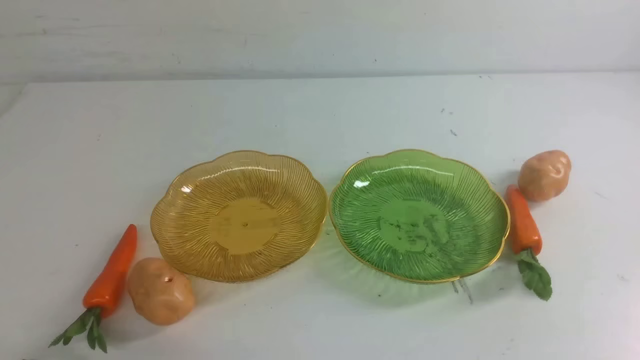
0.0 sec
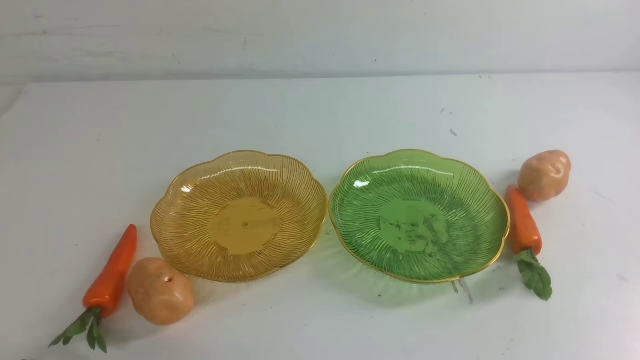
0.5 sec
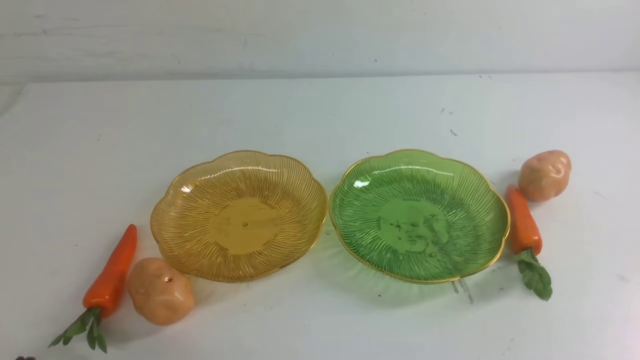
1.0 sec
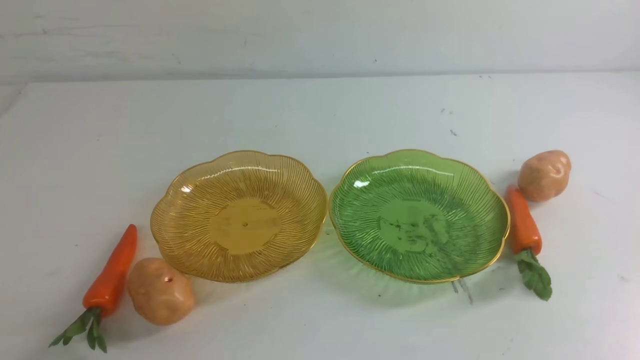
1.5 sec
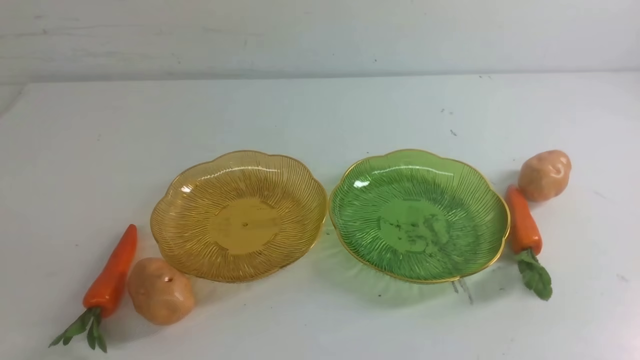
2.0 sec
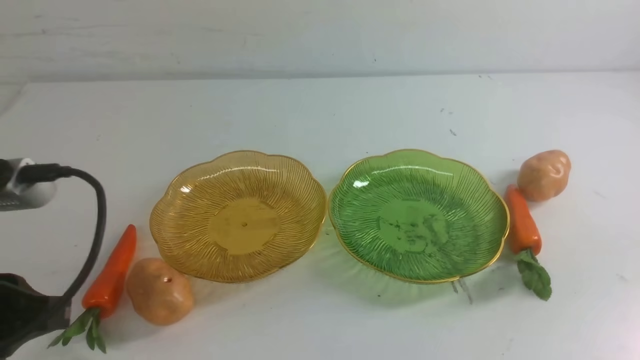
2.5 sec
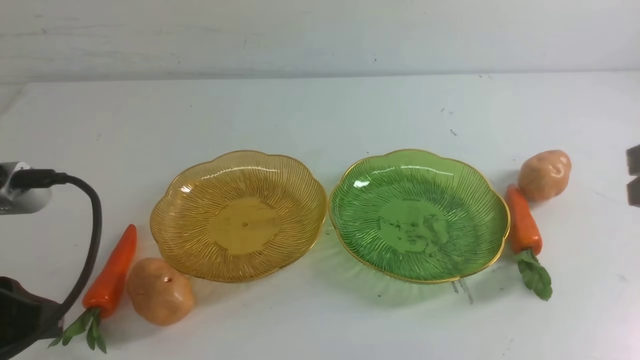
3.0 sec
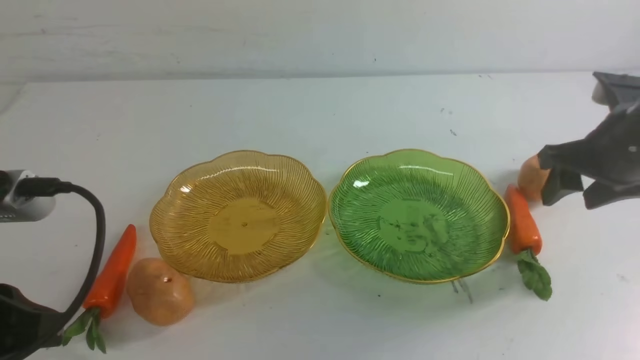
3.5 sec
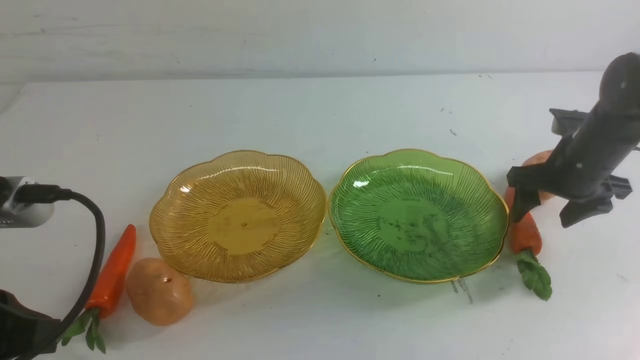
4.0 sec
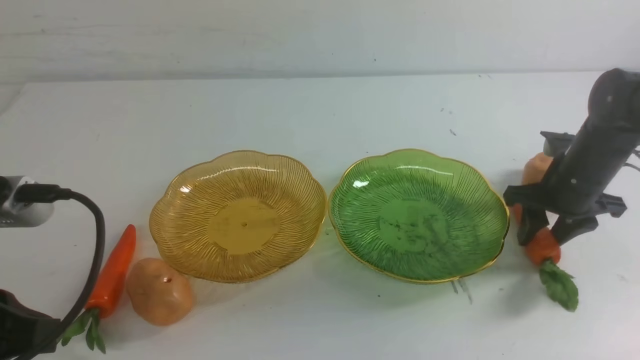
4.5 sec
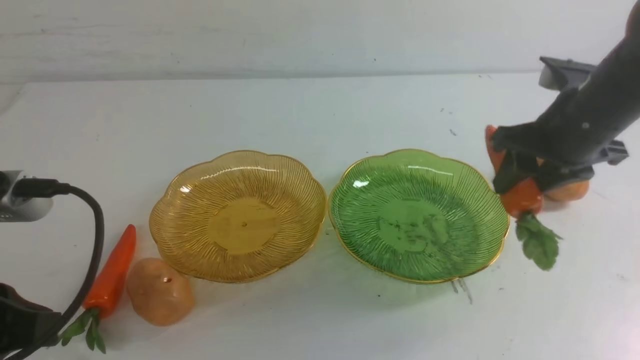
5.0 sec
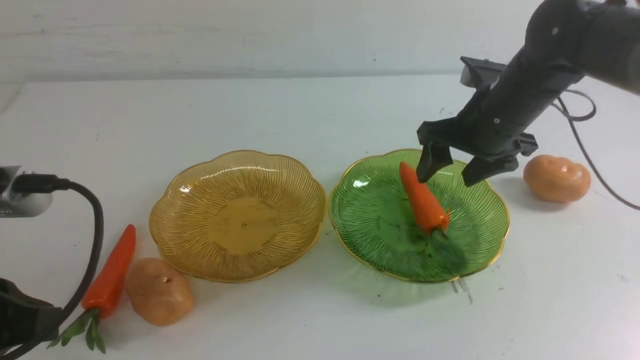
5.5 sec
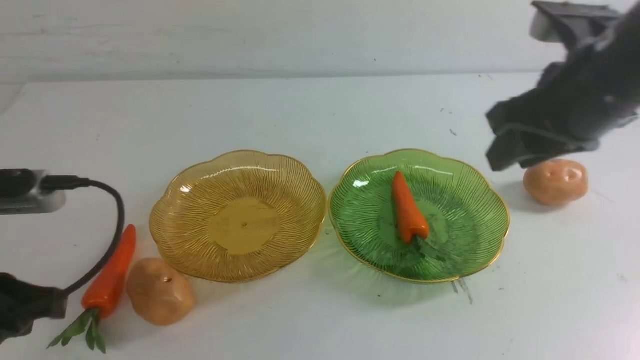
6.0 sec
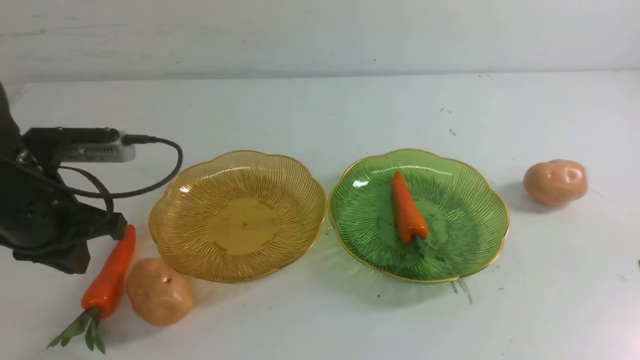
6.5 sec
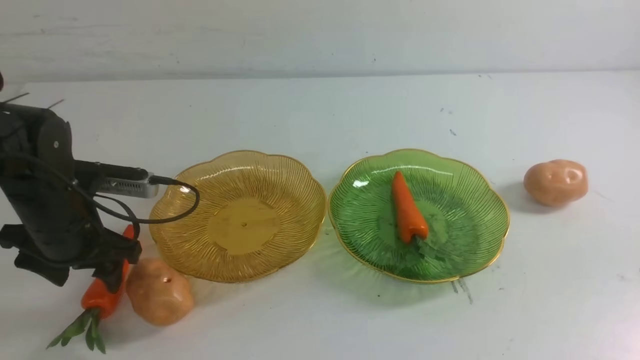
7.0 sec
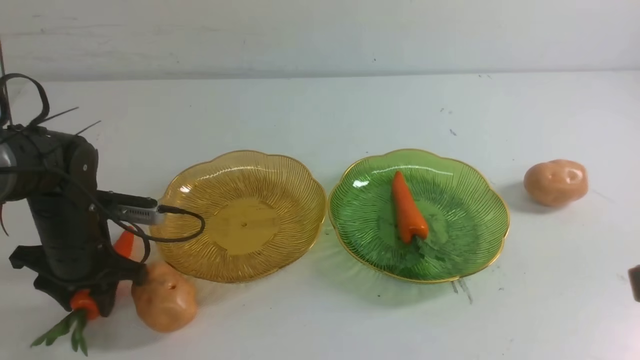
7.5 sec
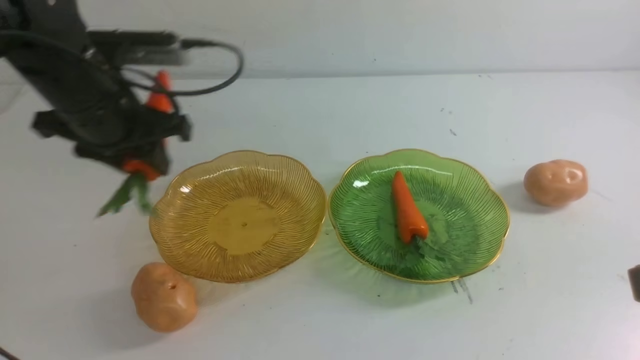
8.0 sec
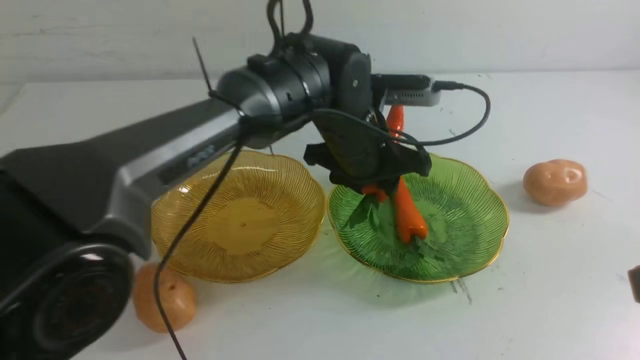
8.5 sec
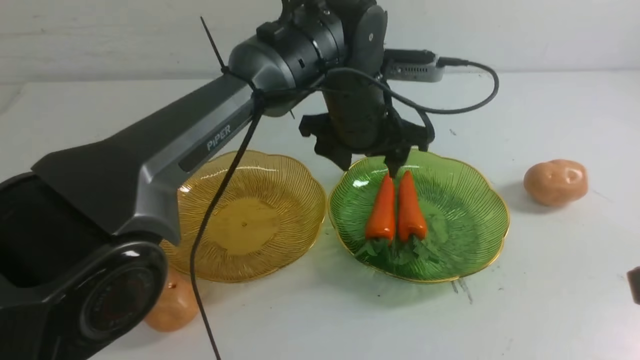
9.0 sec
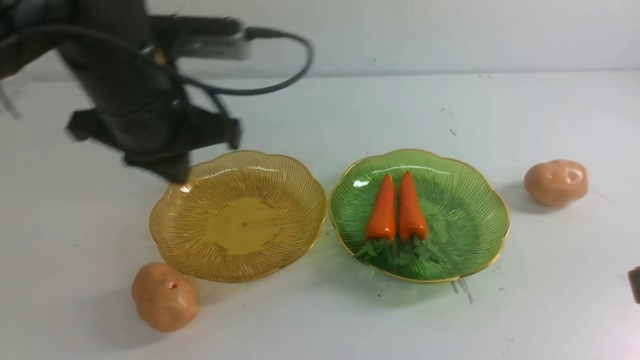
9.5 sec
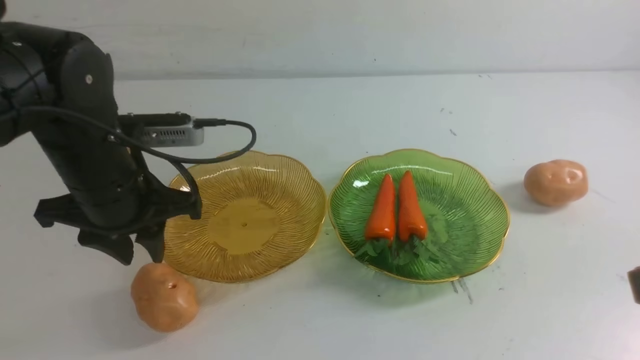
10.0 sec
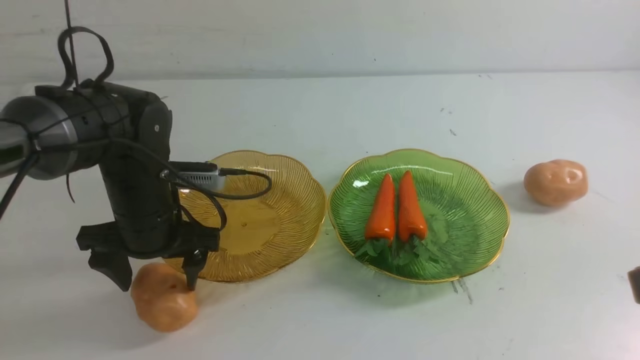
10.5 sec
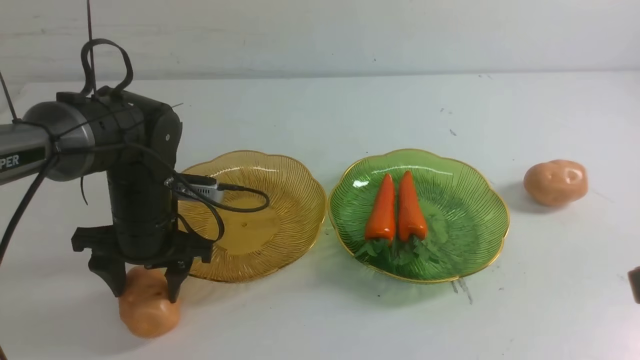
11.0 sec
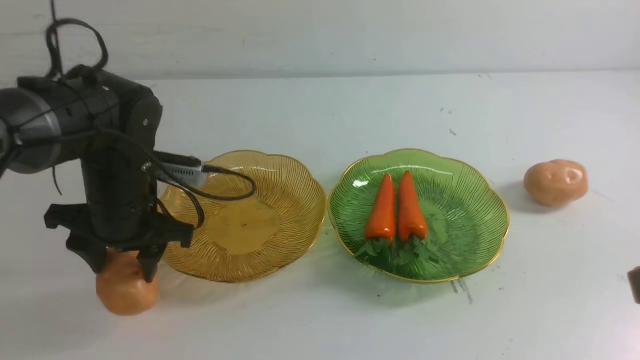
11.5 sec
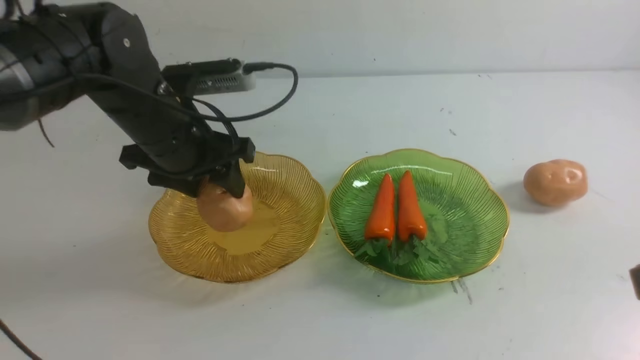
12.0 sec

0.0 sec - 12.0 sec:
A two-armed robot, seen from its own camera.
Step, 0.0 sec - 5.5 sec: use the right arm to grab a carrot and put it into the right plate.
Step, 6.0 sec - 9.0 sec: use the left arm to grab a carrot and put it into the right plate.
2.0 sec - 4.0 sec: The right gripper moves forward, roughly 35 cm, and opens its fingers. Meanwhile the left gripper heads forward, covering roughly 5 cm.
4.0 sec - 6.0 sec: The right gripper heads backward and upward, covering approximately 30 cm, and closes up. Meanwhile the left gripper goes about 15 cm forward.
6.0 sec - 8.0 sec: The left gripper goes roughly 30 cm to the right and forward, and opens.
8.0 sec - 10.0 sec: The left gripper travels to the left by some 20 cm, and closes, then reopens.
10.0 sec - 12.0 sec: The left gripper swings up and down, roughly 10 cm each way, with 2 reversals, and closes its fingers; the right gripper goes some 20 cm forward.

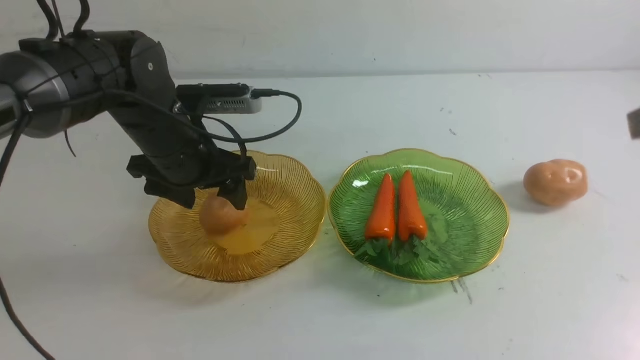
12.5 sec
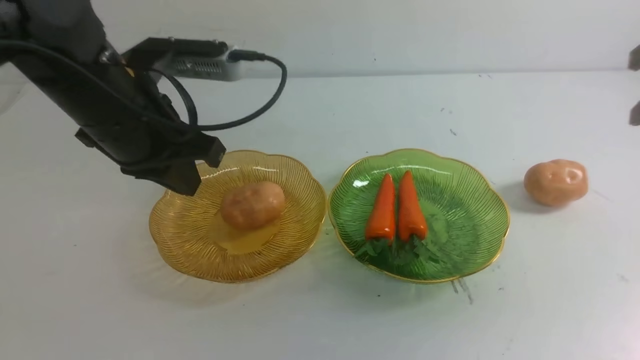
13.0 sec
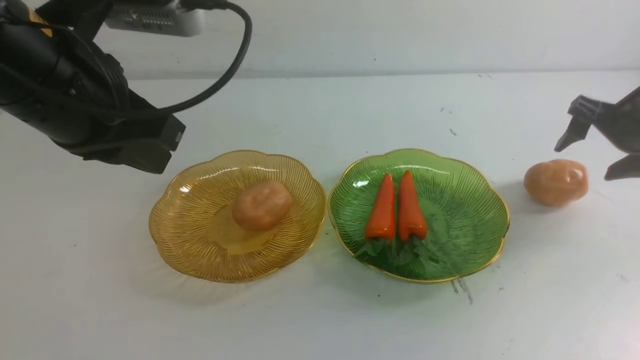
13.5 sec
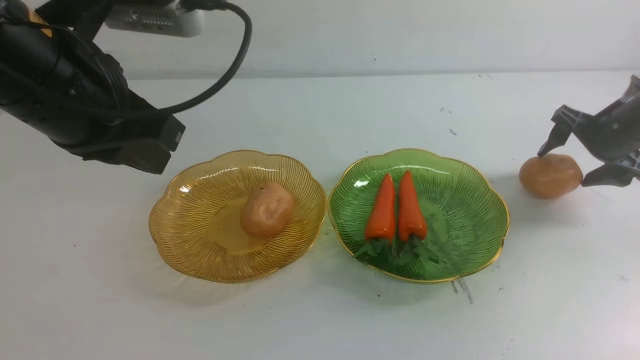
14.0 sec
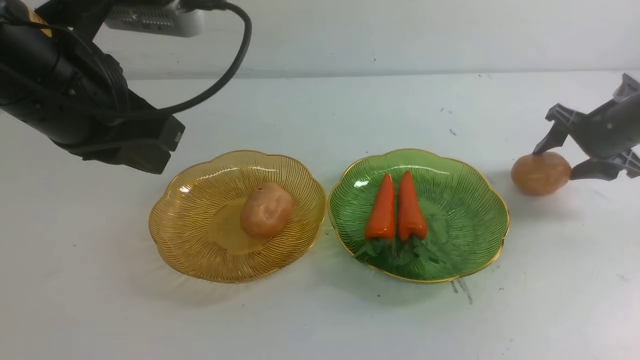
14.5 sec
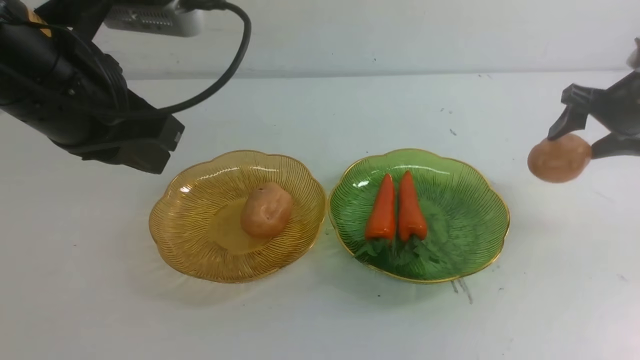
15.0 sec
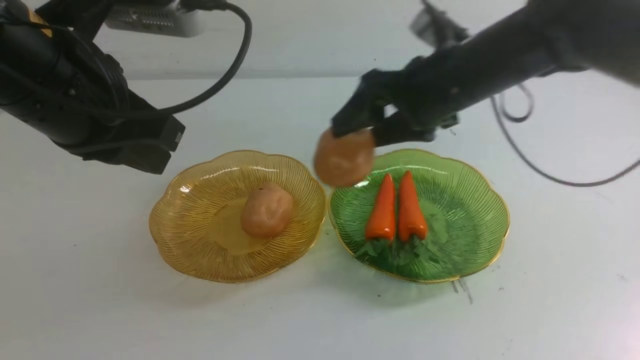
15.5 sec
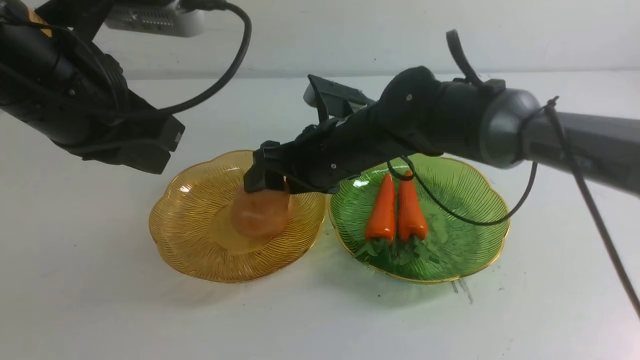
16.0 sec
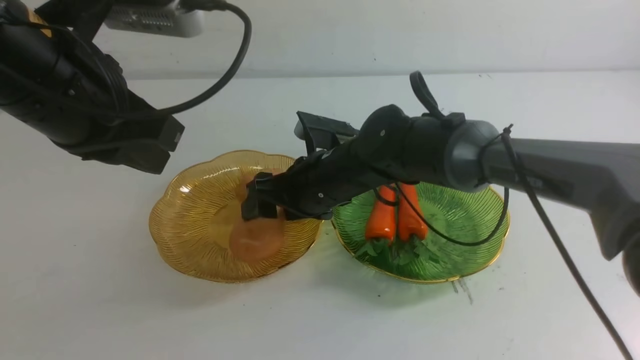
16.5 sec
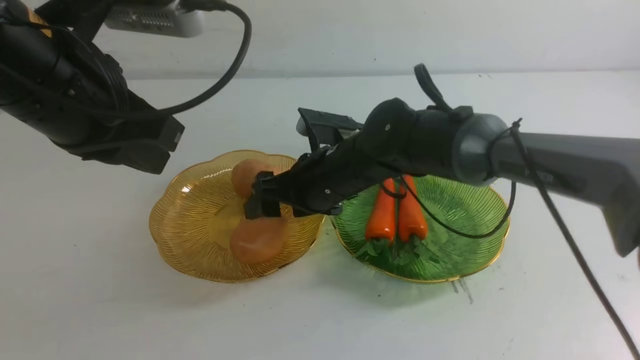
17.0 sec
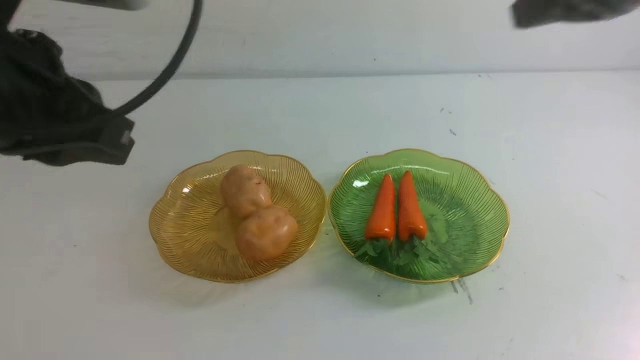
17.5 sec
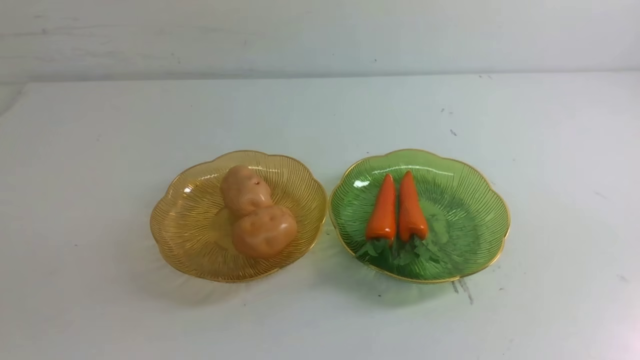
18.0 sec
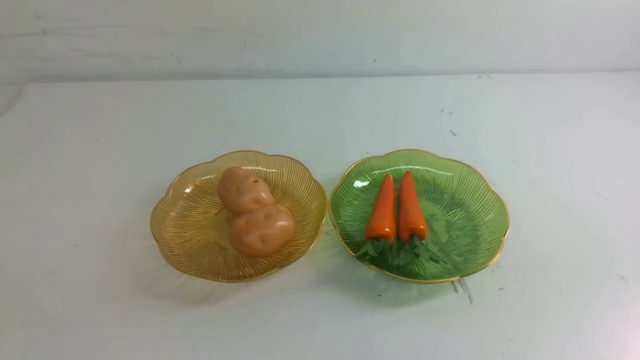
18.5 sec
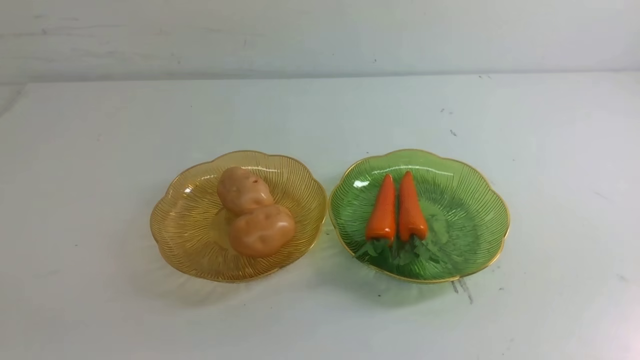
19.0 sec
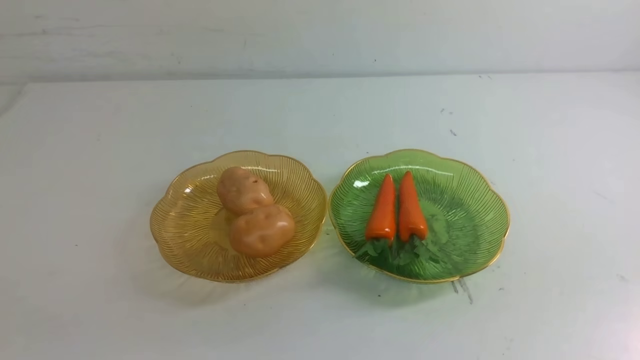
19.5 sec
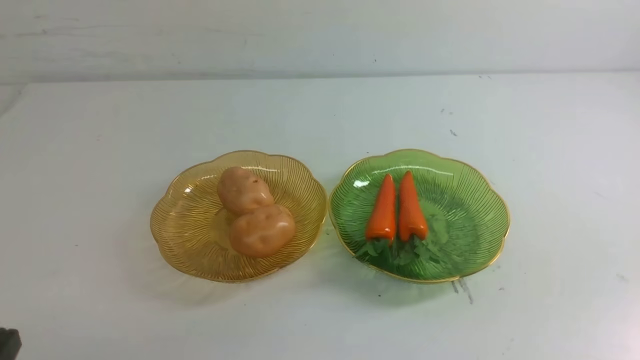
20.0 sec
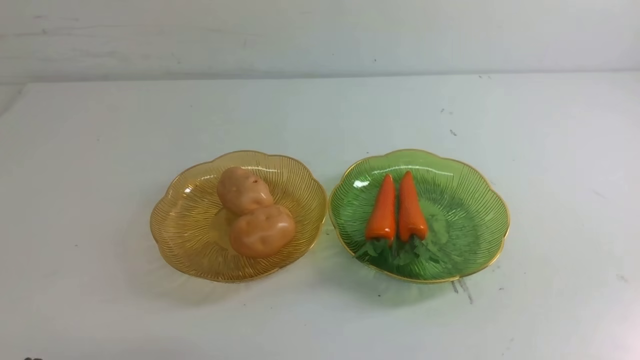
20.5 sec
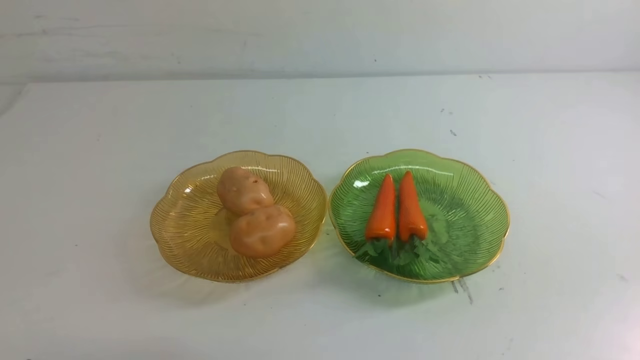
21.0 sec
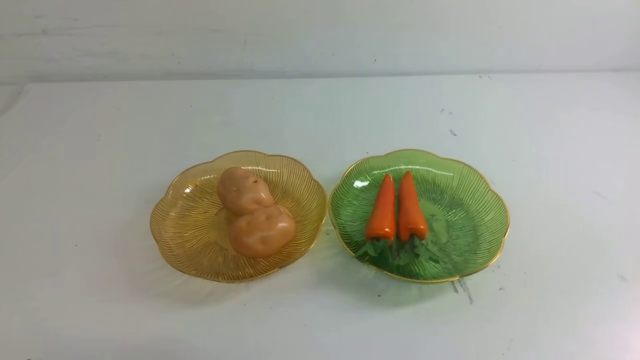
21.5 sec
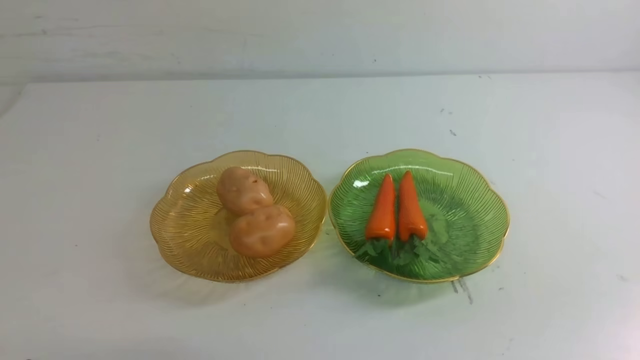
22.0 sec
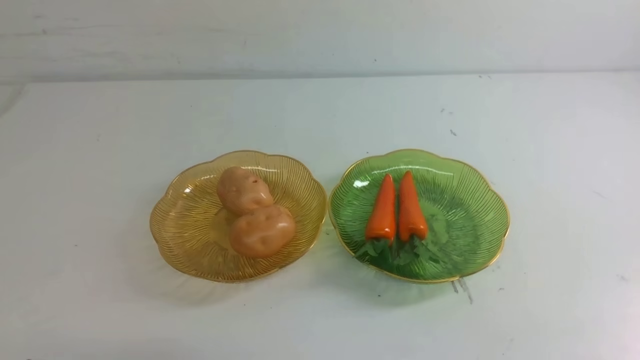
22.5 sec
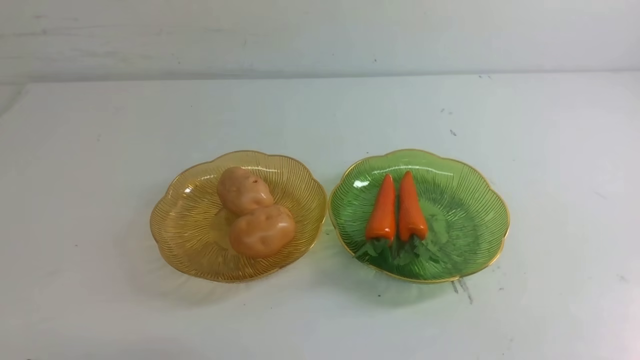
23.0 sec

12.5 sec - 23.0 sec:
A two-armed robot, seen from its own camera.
Step, 13.0 sec - 17.0 sec: Grab a potato with your right arm and put it on the left plate.
12.5 sec - 14.5 sec: The right gripper shifts some 15 cm to the left and upward.
14.5 sec - 16.5 sec: The right gripper travels to the left and backward by approximately 15 cm.
16.5 sec - 19.0 sec: The right gripper moves backward and to the right, roughly 40 cm, and closes. Meanwhile the left gripper goes approximately 25 cm backward and downward.
